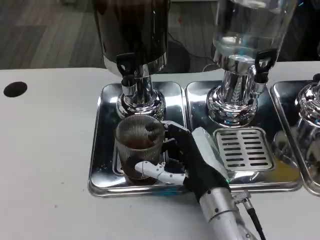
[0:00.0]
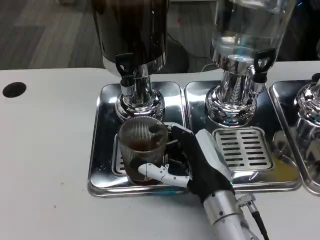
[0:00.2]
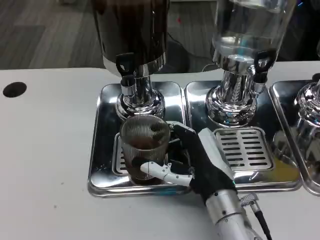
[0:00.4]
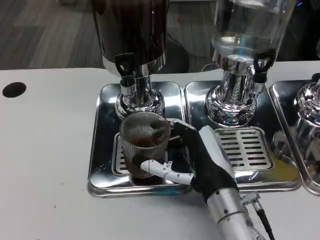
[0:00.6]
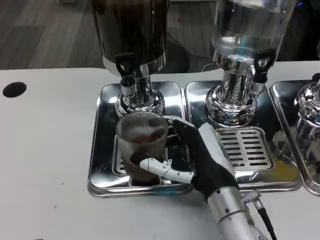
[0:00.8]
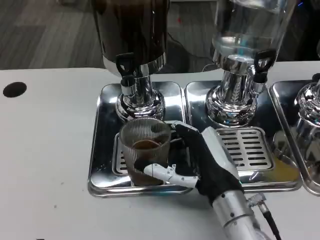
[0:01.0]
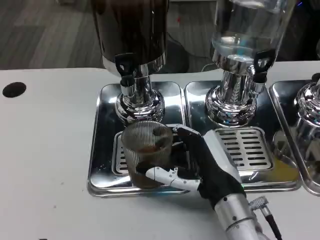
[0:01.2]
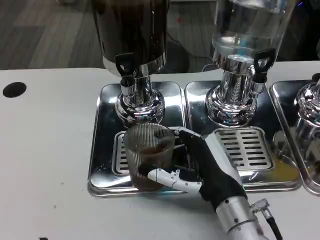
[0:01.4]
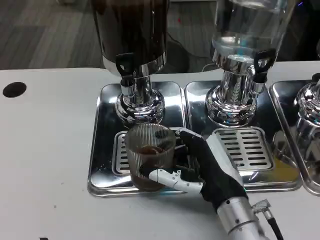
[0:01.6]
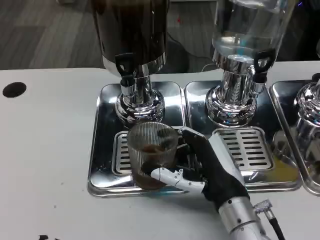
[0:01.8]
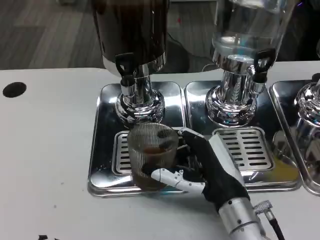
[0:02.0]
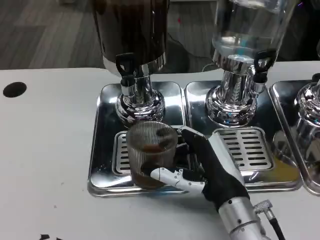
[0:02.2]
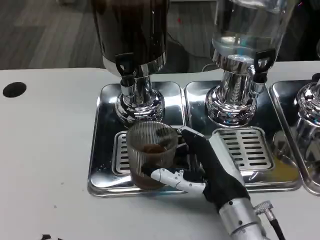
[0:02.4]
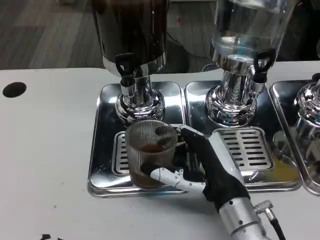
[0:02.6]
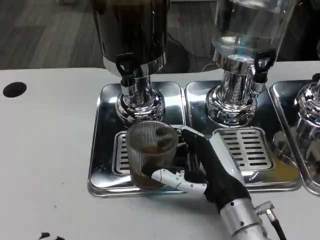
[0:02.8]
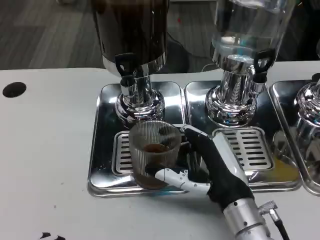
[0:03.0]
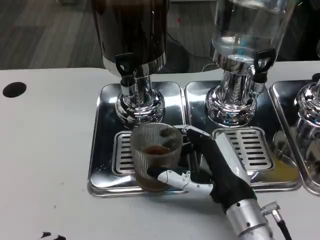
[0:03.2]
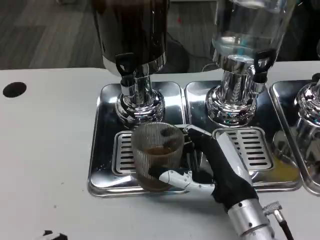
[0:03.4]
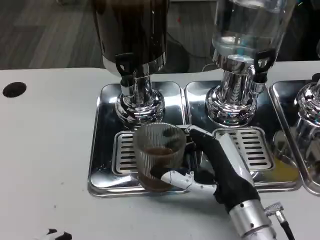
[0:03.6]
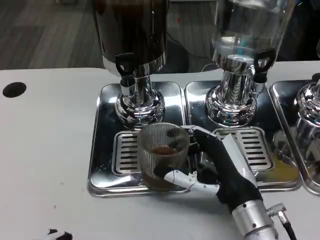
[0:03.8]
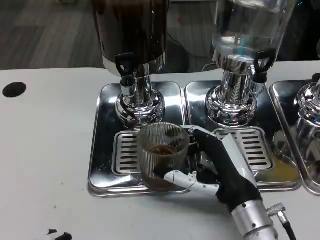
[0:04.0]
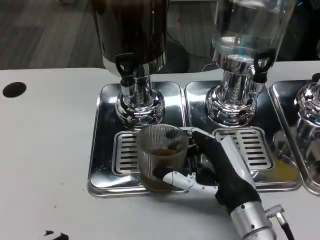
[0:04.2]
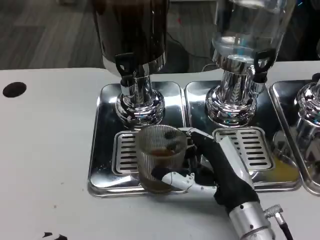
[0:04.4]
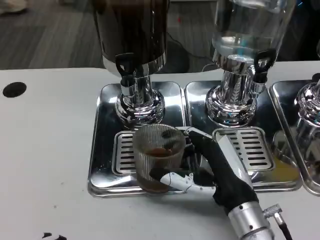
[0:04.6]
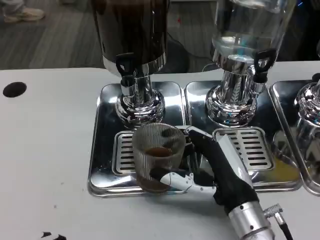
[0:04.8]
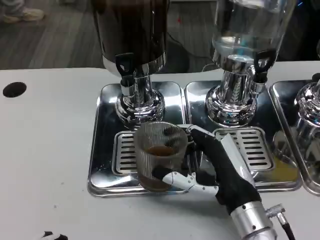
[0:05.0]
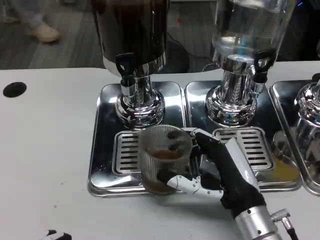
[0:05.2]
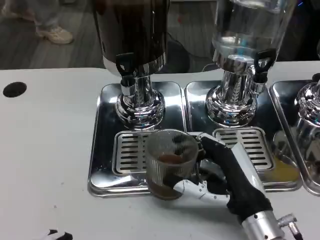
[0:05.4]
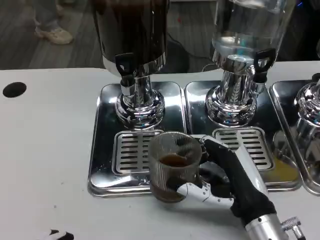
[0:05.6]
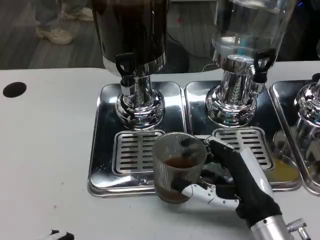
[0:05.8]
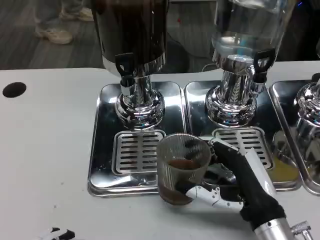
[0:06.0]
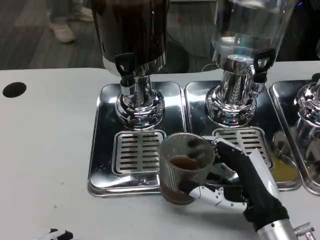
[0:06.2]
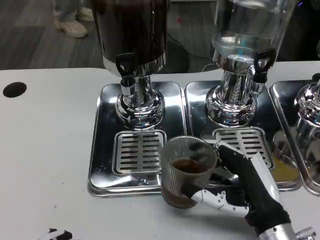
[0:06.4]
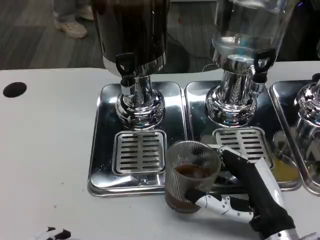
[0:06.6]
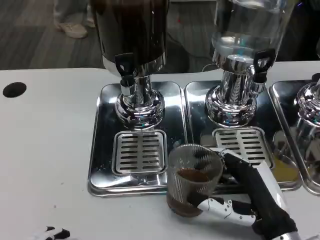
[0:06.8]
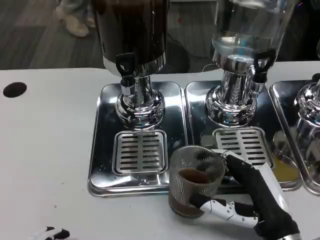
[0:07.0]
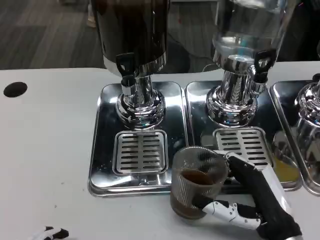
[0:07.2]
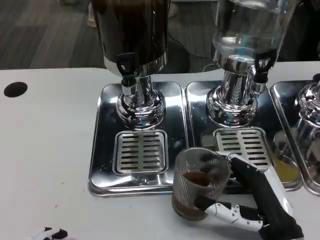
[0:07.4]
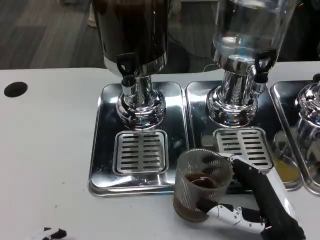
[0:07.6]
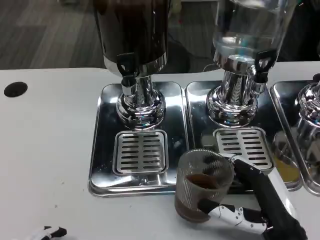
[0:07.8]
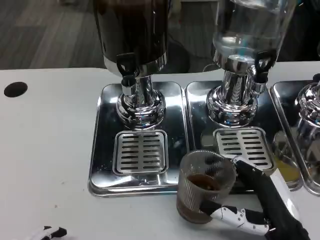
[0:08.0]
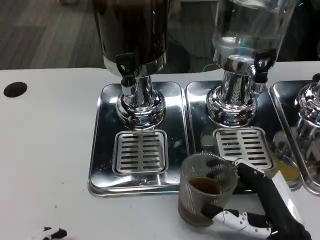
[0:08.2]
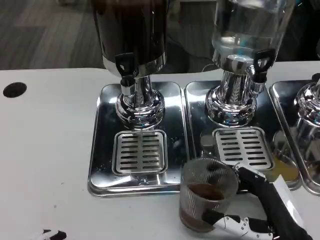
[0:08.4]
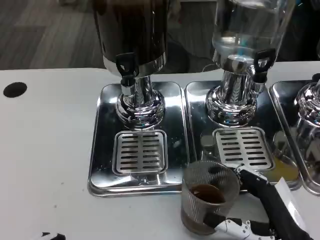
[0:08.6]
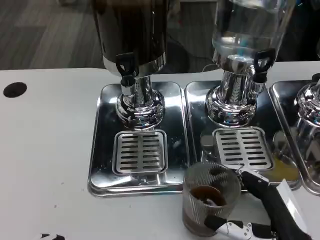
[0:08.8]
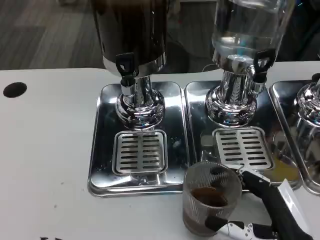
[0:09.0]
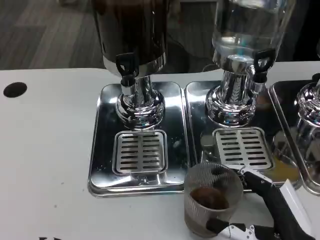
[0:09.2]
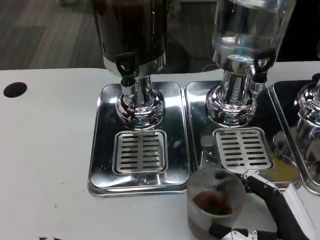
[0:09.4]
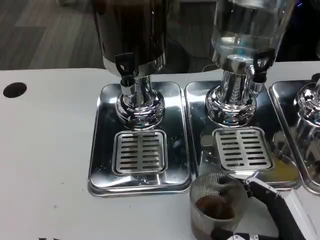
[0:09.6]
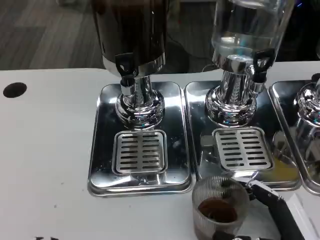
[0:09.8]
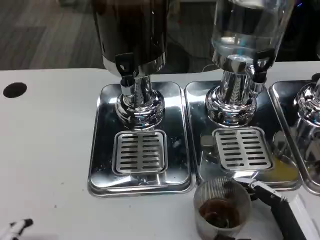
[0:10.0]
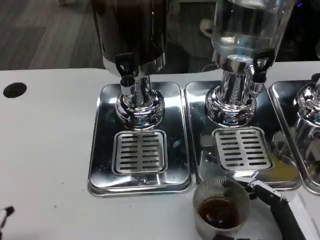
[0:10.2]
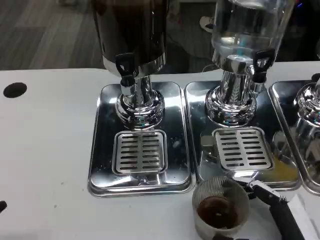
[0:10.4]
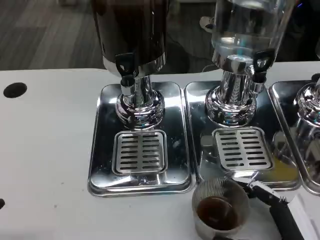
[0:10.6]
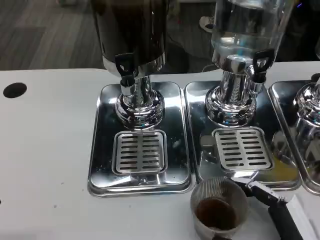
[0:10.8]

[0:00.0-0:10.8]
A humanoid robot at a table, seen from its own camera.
Task of the whole recording: Grasp the cup under the faucet to collect the drink, then remove the cup.
0:00.0 to 0:03.0: The hands make only small movements.
0:03.0 to 0:04.6: Neither hand changes place.
0:04.6 to 0:06.2: There are only small adjustments of the hands.
0:06.2 to 0:07.8: The hands stay close to where they were, moving slightly.
0:07.8 to 0:10.8: The hands move only a little.

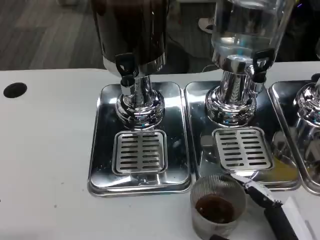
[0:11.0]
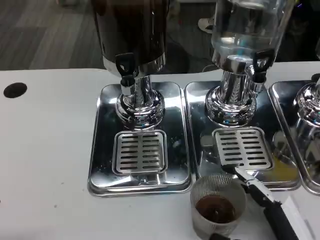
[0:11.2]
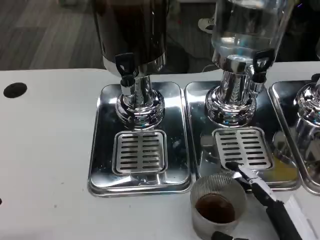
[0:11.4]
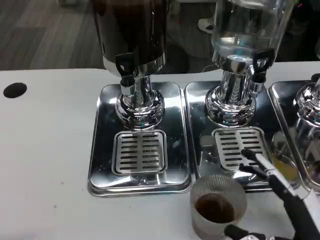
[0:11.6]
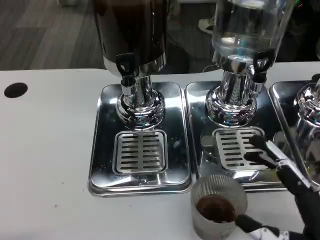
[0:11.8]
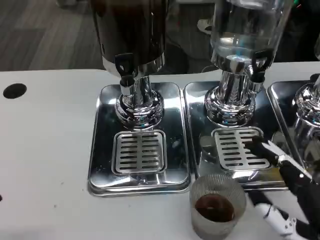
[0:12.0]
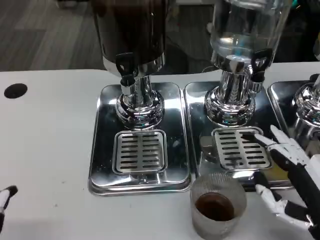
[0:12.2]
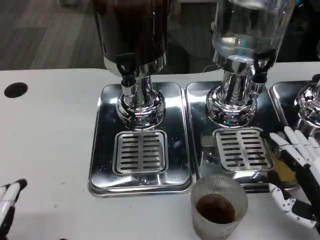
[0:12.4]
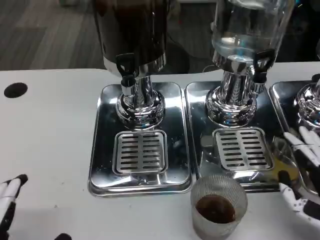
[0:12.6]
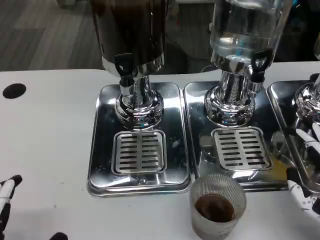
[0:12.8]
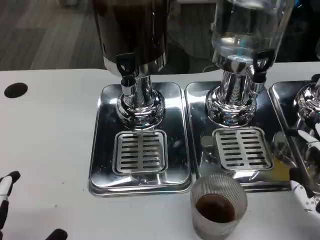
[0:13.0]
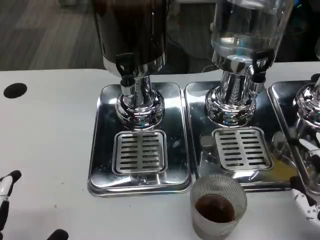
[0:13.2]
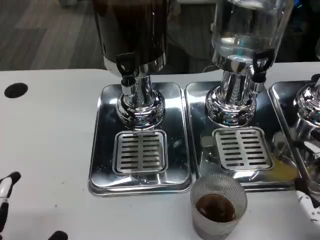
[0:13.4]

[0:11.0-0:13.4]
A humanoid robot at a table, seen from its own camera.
Task of the whole recording: Grasp the cup under the faucet to collect the drink, then remove the cup.
0:11.0 to 0:12.2: The right hand is displaced upward by some 10 cm.
0:12.2 to 0:13.4: There are only small adjustments of the hands.

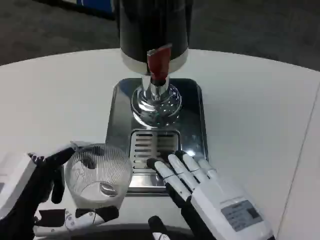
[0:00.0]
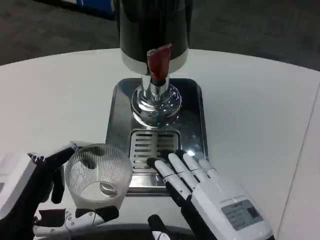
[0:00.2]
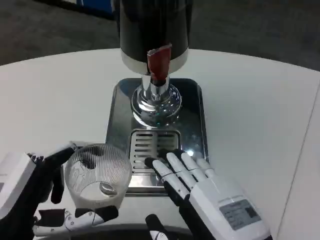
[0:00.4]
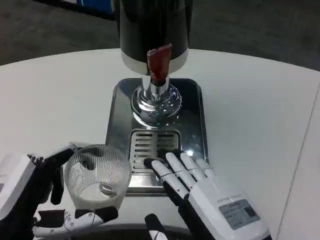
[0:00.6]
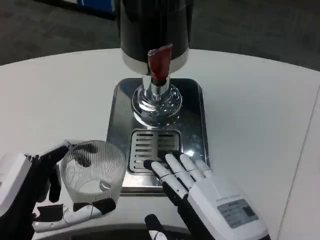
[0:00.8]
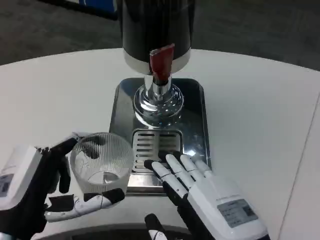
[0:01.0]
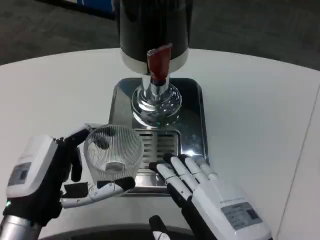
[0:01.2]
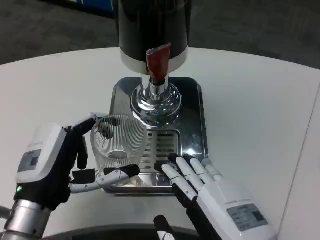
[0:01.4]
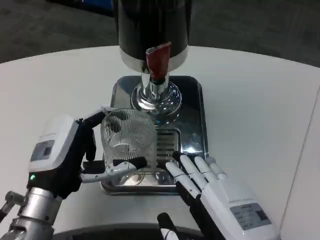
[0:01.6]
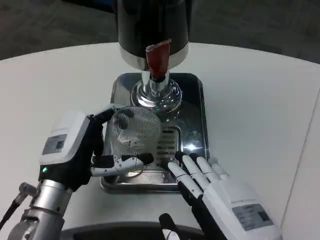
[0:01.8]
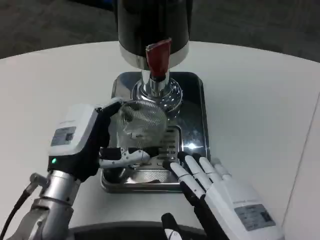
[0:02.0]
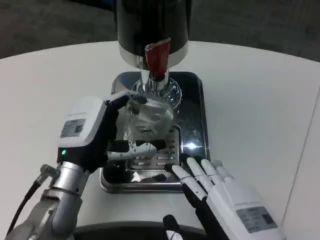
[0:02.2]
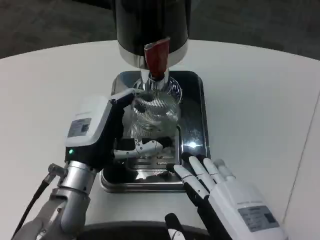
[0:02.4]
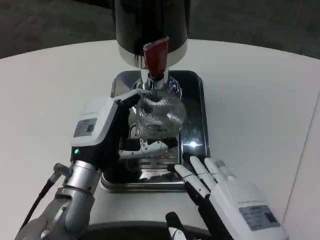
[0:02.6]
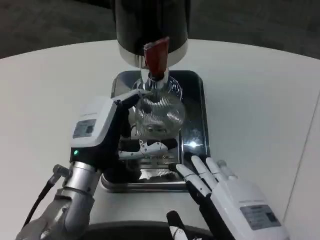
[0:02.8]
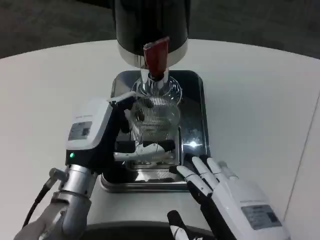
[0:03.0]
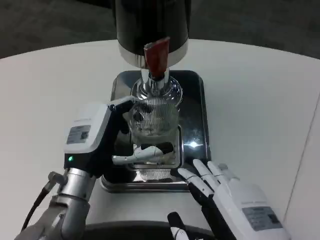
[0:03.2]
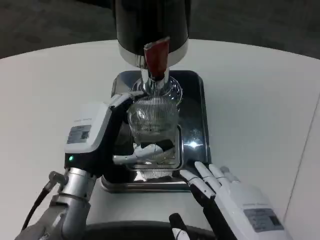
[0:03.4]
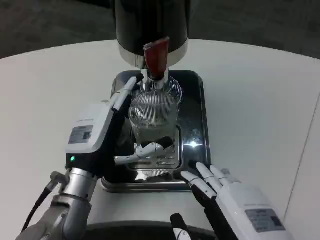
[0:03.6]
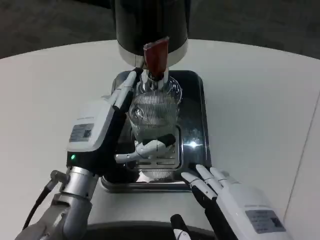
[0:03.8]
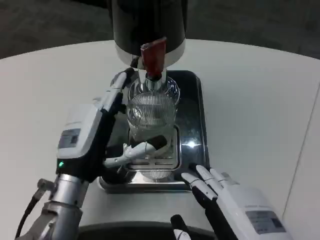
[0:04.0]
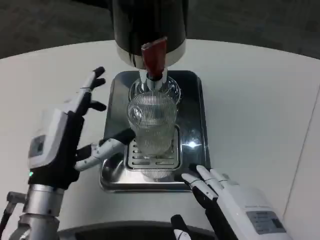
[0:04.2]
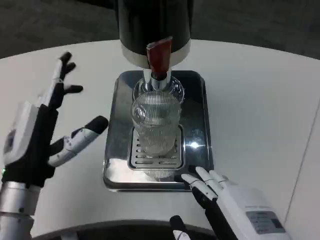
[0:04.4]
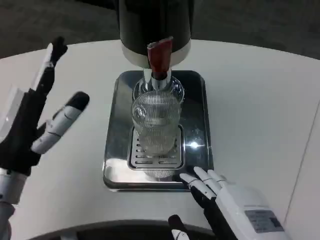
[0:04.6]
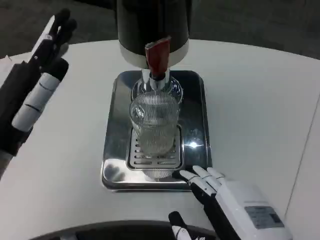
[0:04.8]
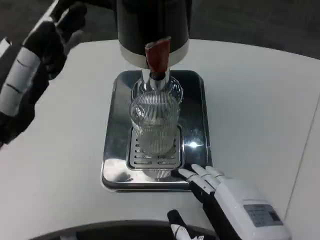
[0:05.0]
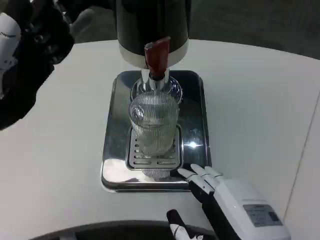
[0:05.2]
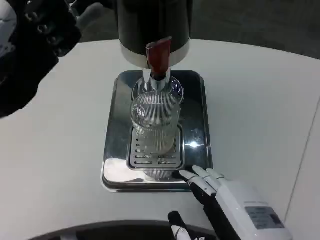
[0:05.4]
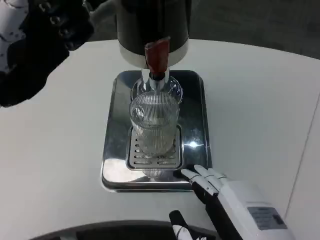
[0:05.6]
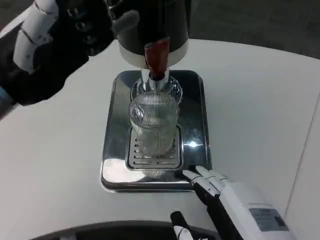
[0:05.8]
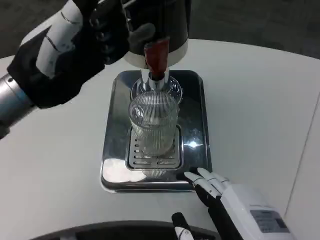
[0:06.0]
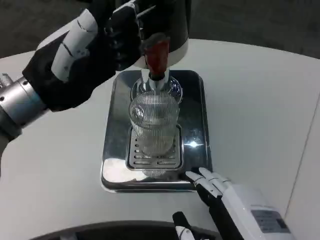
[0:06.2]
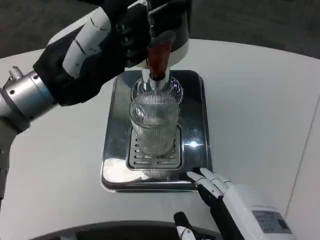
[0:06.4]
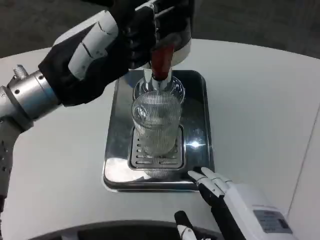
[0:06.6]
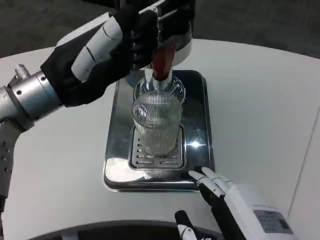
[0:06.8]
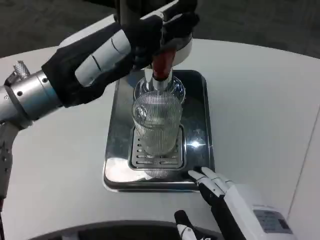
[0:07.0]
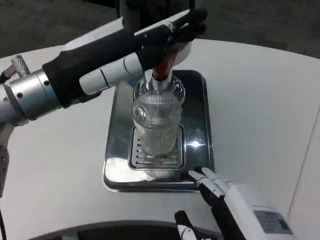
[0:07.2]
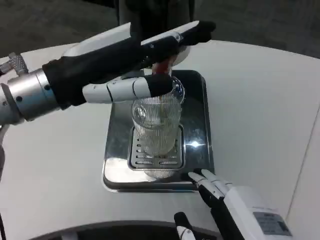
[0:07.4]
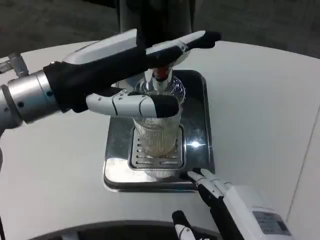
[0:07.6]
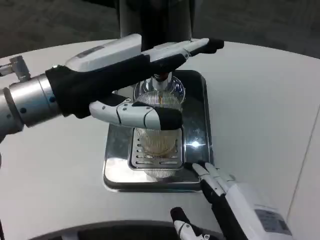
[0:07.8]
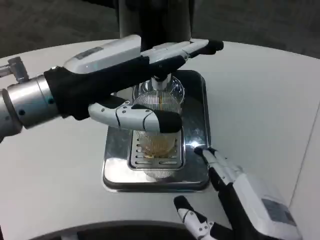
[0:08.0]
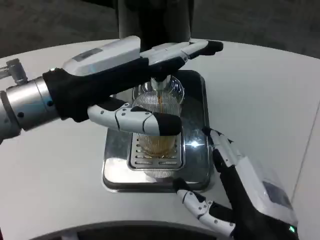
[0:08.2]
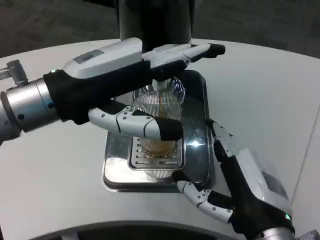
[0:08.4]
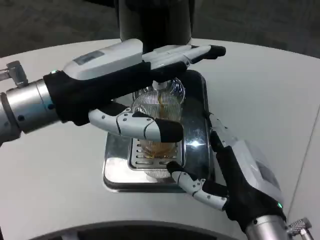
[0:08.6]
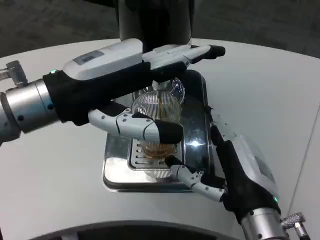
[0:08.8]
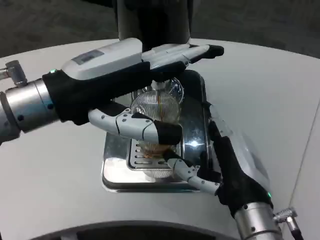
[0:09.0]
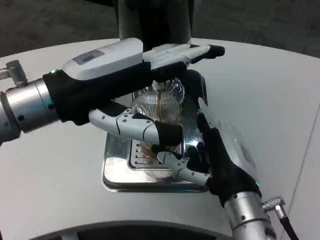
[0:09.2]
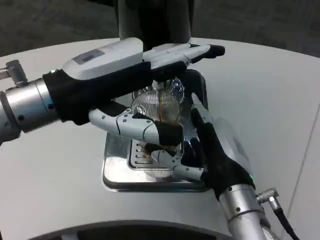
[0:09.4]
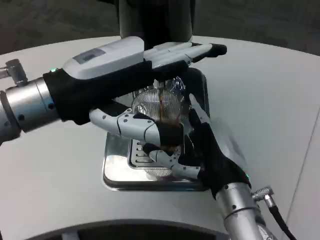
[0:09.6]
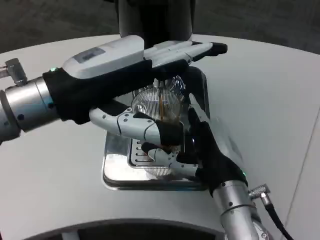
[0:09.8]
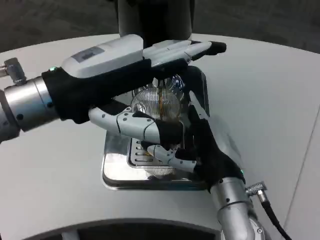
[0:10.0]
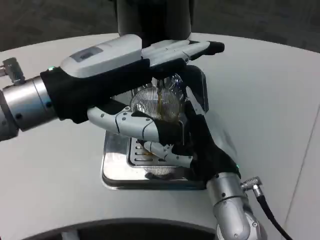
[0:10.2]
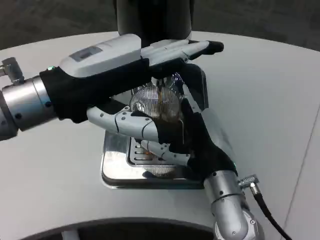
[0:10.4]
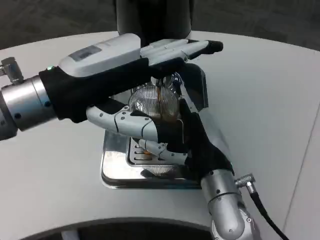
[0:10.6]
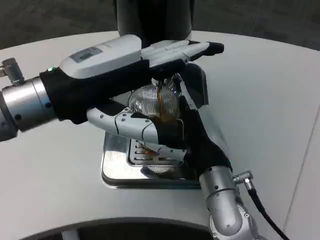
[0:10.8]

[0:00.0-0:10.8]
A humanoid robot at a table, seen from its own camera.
Task of the whole recording: Grasp the cup under the faucet to collect the drink, then remove the cup.
0:00.0 to 0:01.6: The left hand heads forward, covering some 10 cm.
0:01.6 to 0:03.0: The left hand goes approximately 5 cm forward.
0:03.0 to 0:04.6: The left hand goes about 10 cm to the left, upward and backward.
0:04.6 to 0:06.2: The left hand heads upward, covering approximately 10 cm.
0:07.8 to 0:09.2: The right hand moves forward, some 10 cm.
0:09.2 to 0:10.8: The right hand changes place by roughly 5 cm.
